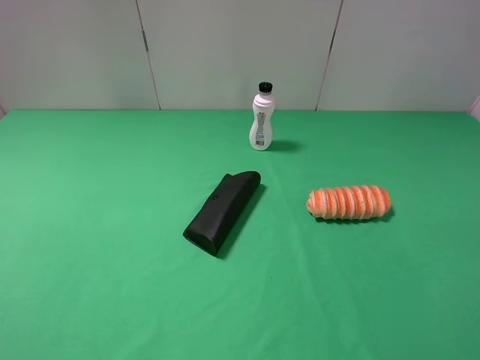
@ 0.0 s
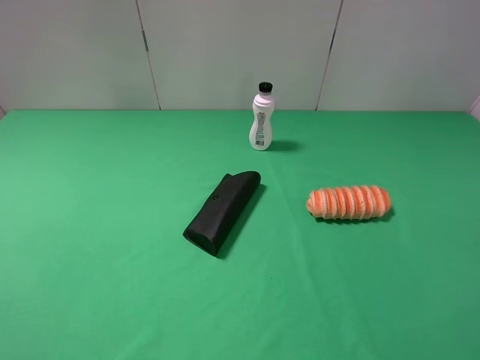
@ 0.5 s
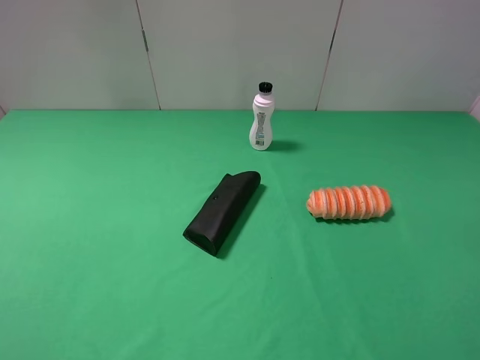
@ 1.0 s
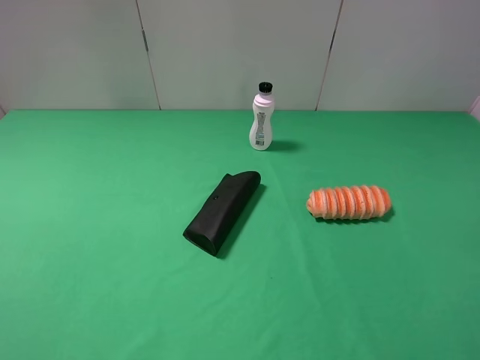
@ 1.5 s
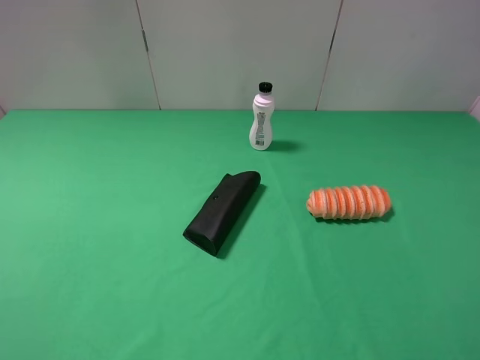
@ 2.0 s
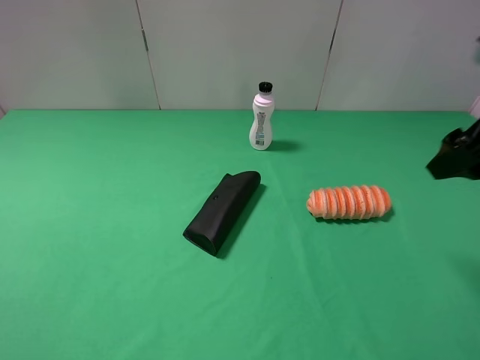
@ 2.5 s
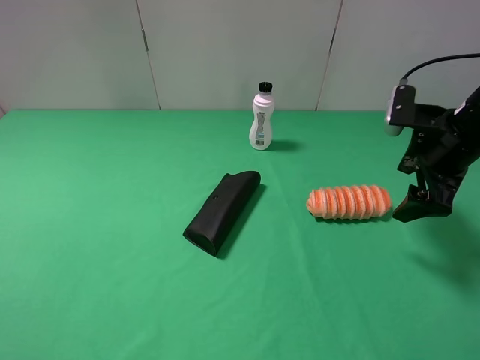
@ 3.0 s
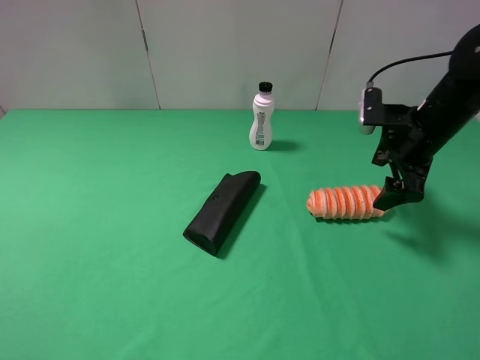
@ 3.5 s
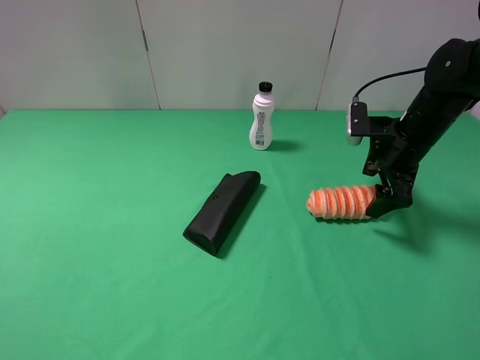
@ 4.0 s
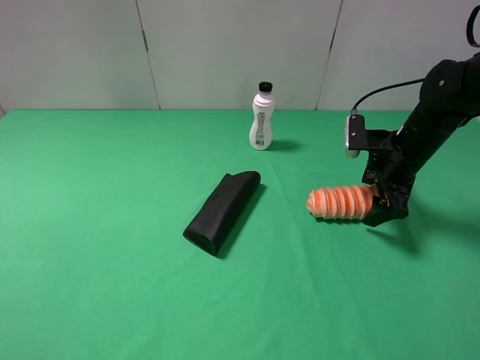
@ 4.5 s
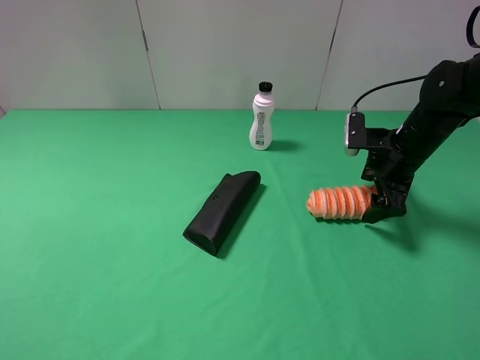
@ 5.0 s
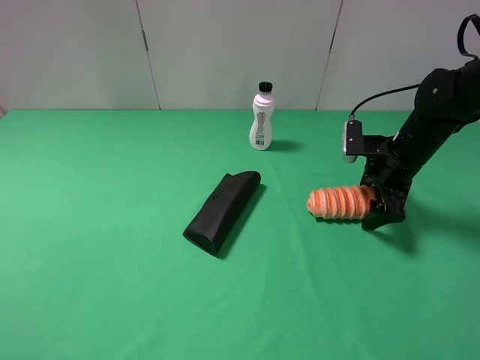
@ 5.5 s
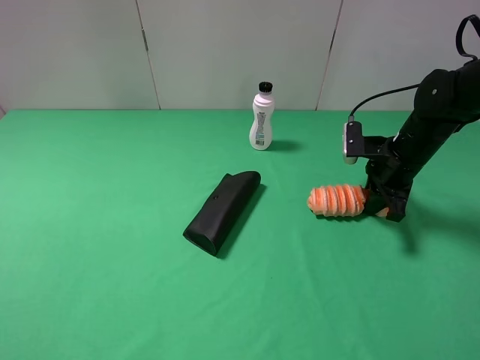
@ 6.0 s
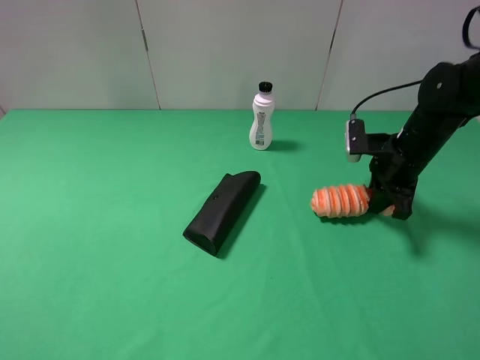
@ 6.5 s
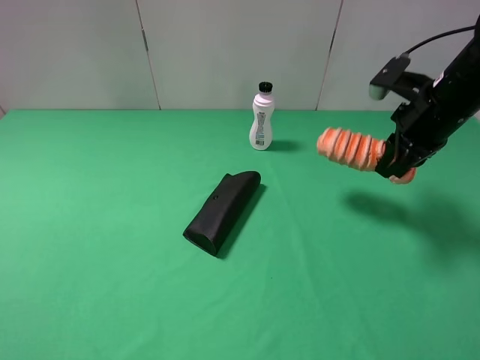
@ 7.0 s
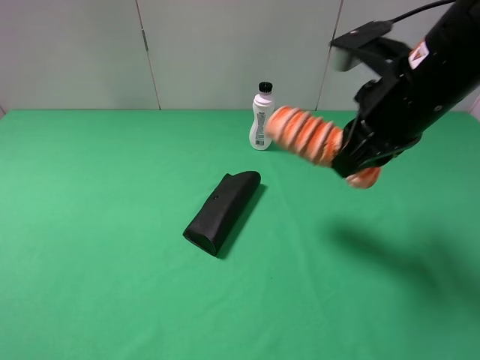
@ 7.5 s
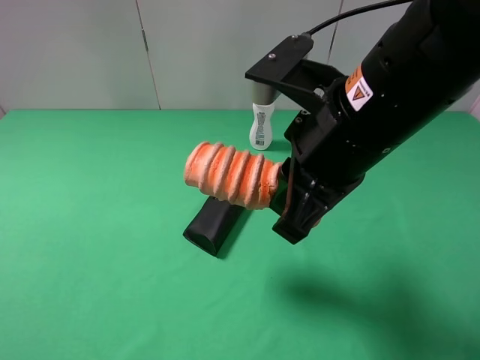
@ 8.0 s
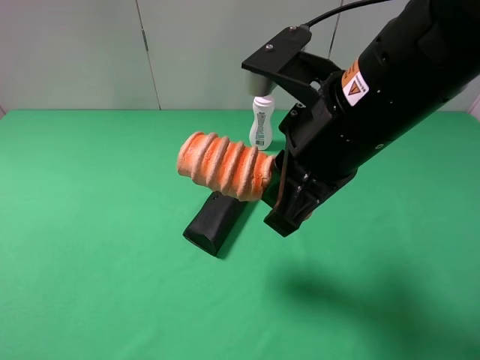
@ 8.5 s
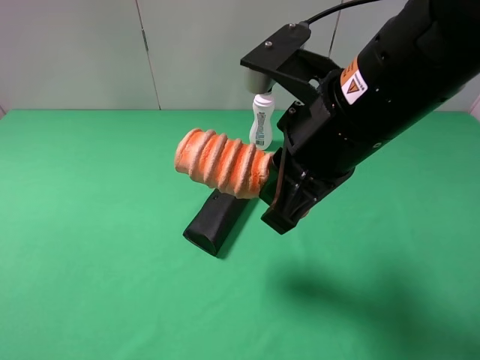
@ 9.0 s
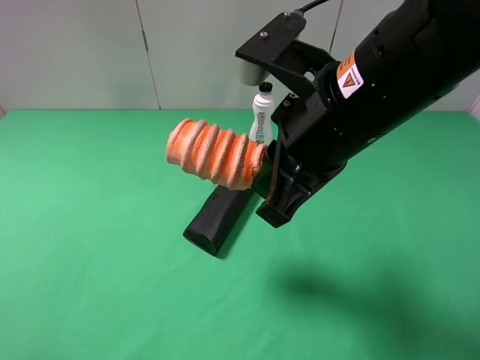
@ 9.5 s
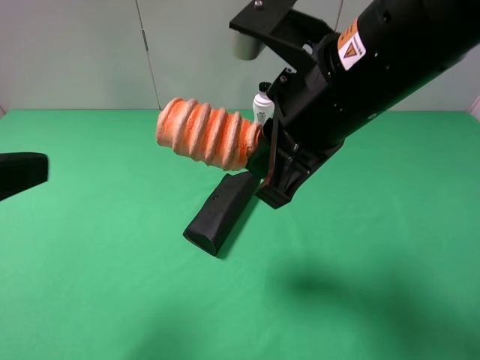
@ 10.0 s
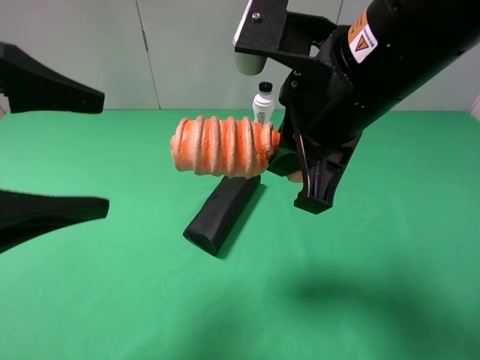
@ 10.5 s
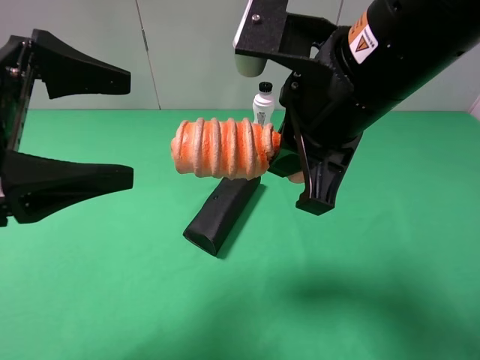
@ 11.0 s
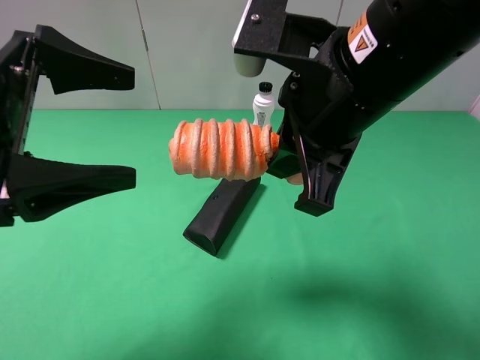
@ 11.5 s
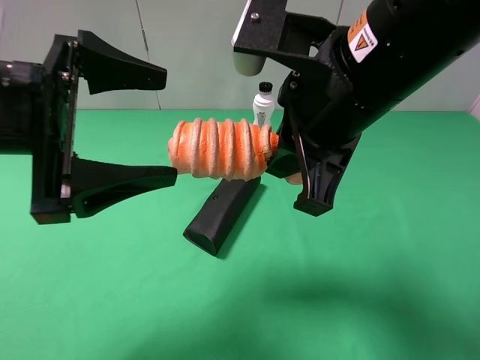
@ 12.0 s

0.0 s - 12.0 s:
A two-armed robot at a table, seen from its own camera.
Task of the whole recording: use the right gripper to pick up the item and transfer it from the right gripper to the left gripper.
Step, 0.0 s - 6.0 s: Use the right gripper to grab the bread on the right side of the table.
2.0 s - 4.0 s: The right gripper is displaced forward and downward by approximately 30 cm.
4.0 s - 6.0 s: The right gripper closes.
6.0 s - 8.0 s: The right gripper shifts about 30 cm to the left, backward and upward.
8.0 s - 10.0 s: The left gripper moves forward and to the right, about 10 cm.
10.0 s - 12.0 s: The left gripper moves forward, to the right and downward, approximately 10 cm.

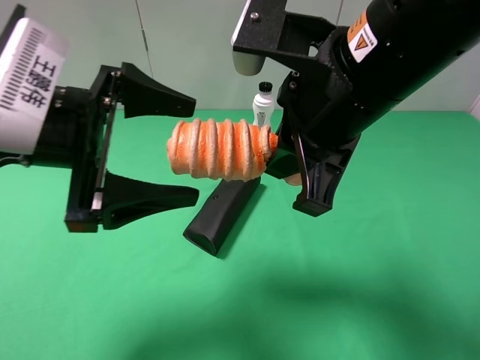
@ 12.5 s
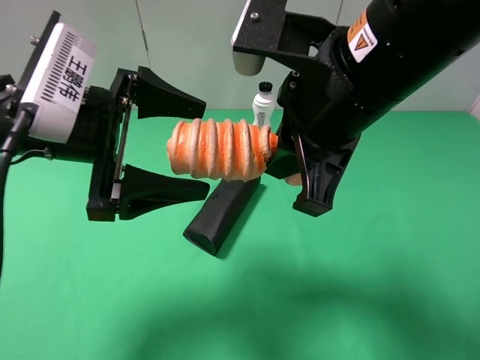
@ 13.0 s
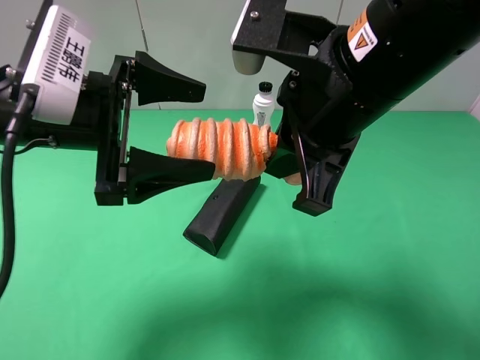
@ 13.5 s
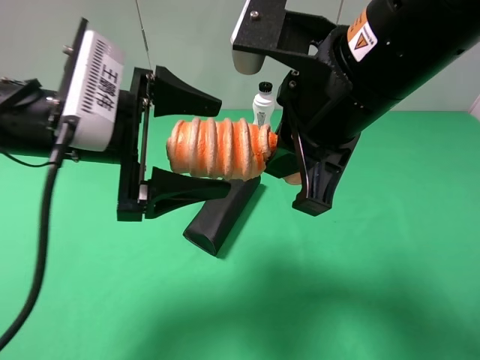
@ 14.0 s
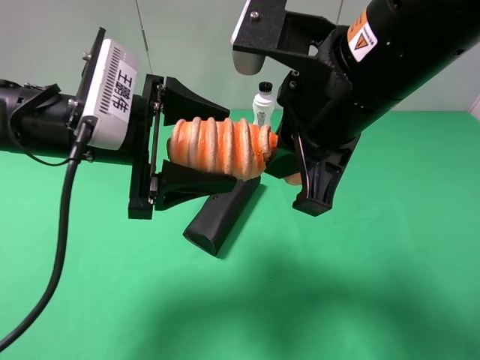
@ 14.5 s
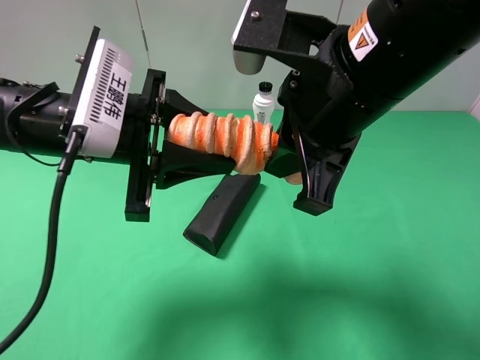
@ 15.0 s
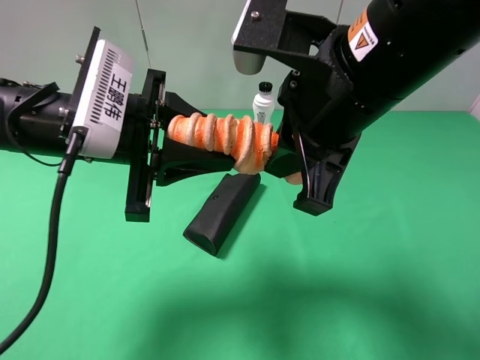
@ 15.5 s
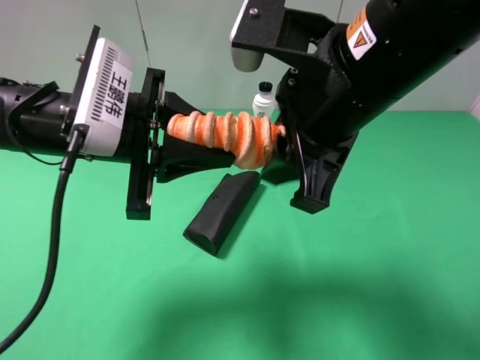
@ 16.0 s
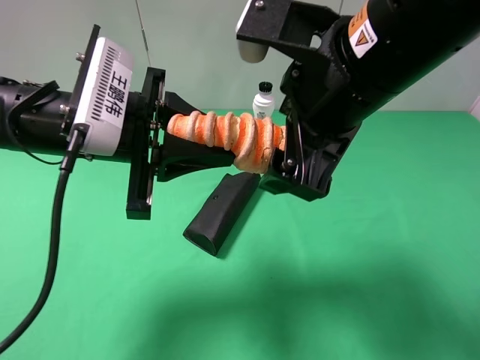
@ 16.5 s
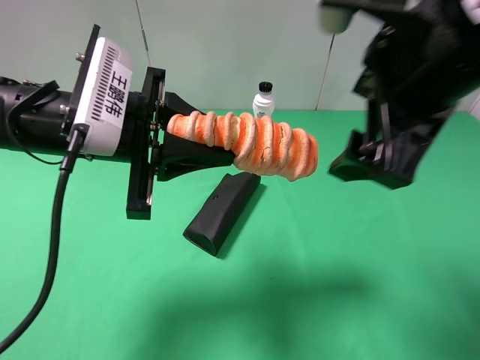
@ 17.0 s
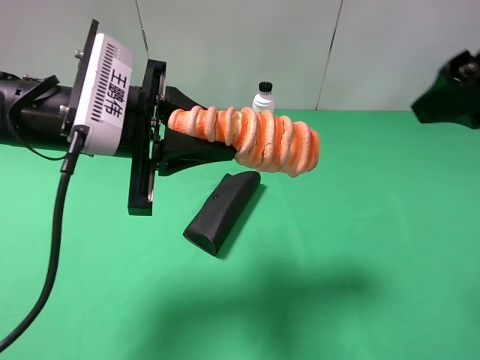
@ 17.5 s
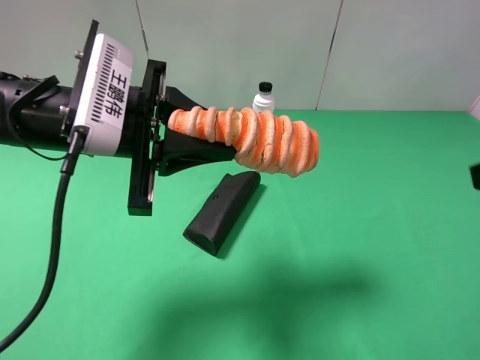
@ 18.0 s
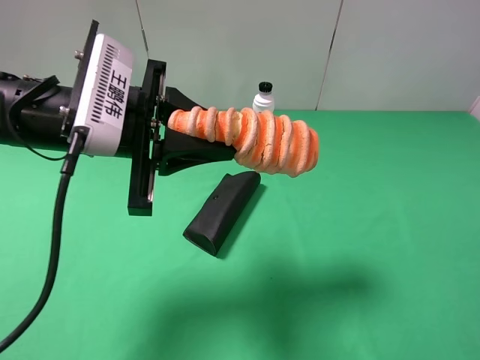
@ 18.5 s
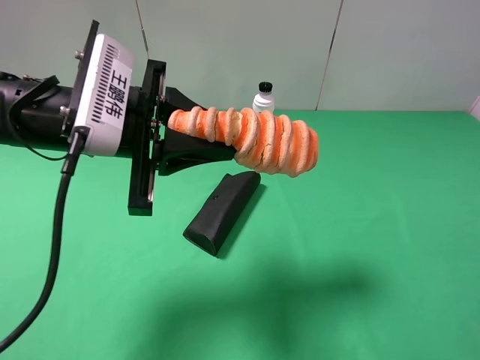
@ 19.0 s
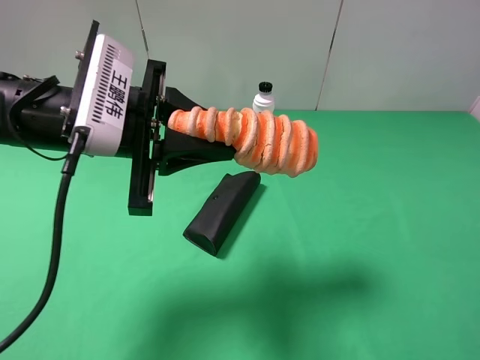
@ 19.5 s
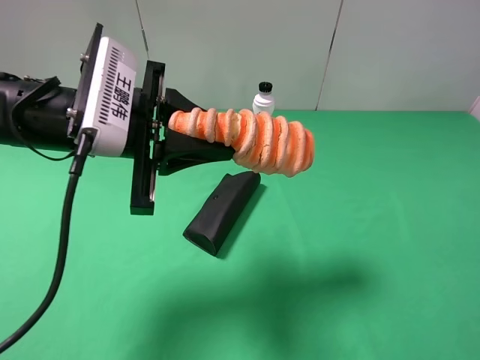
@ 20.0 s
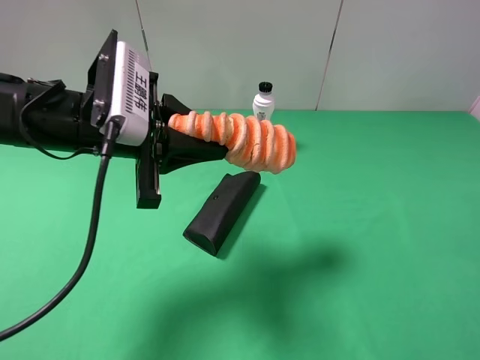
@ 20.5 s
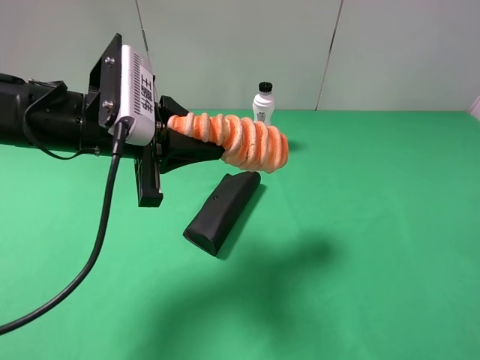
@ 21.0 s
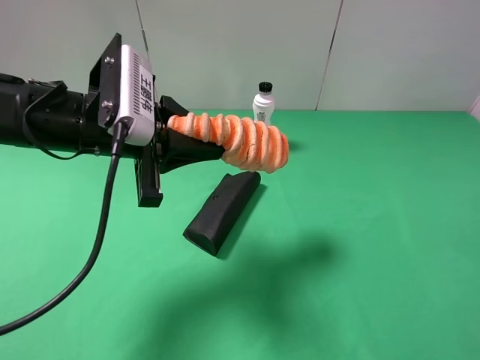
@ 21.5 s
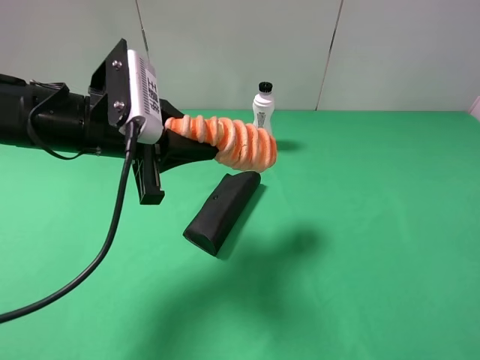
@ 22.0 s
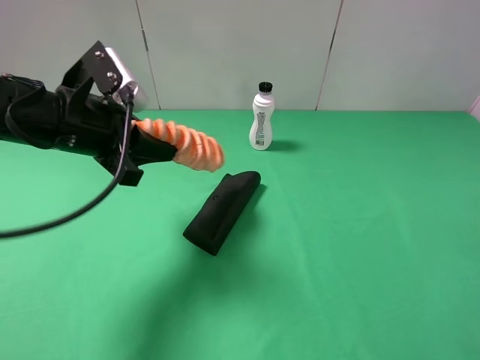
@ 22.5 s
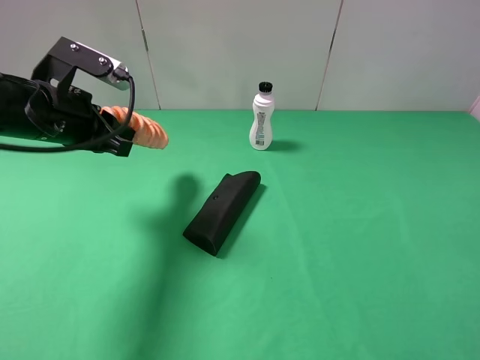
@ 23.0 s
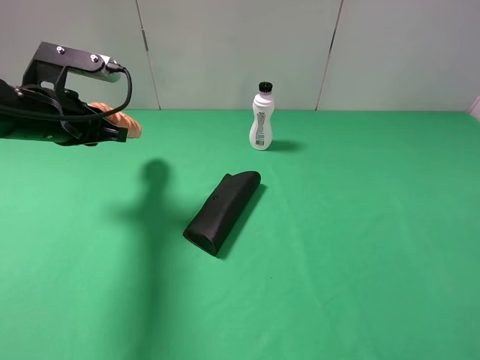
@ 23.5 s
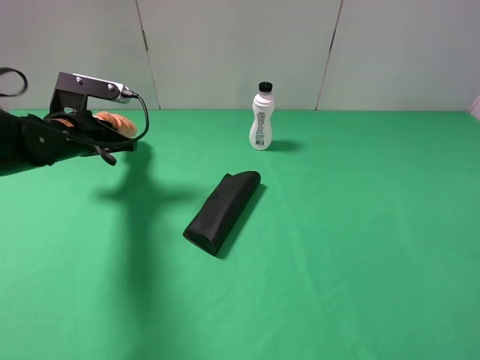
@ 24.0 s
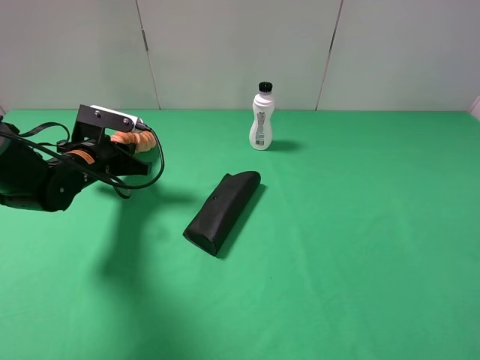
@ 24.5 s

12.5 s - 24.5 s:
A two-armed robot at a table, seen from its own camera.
Task of the whole recording: use the right gripper to pick up the item and transfer it from the right gripper to the left gripper.
Step, 12.5 s - 16.0 s: Pass the bread to the left gripper.
12.5 s - 14.5 s: The grippers stay close to where they were, moving slightly.
14.5 s - 16.5 s: The right gripper opens its fingers. Meanwhile the left gripper closes.
16.5 s - 18.5 s: The right gripper travels to the right and backward by approximately 25 cm.
20.5 s - 22.5 s: The left gripper shifts about 5 cm to the left.
22.5 s - 24.5 s: The left gripper goes roughly 15 cm downward and forward.

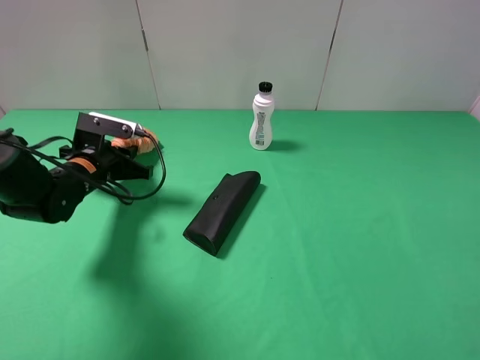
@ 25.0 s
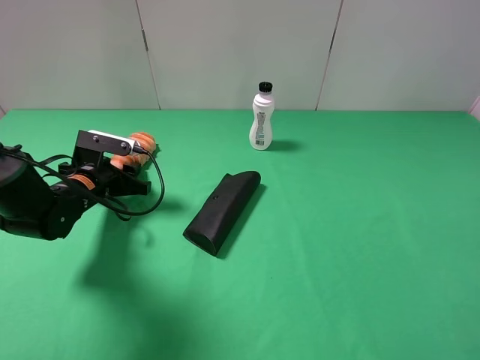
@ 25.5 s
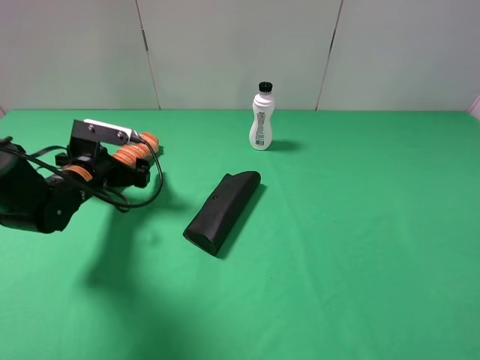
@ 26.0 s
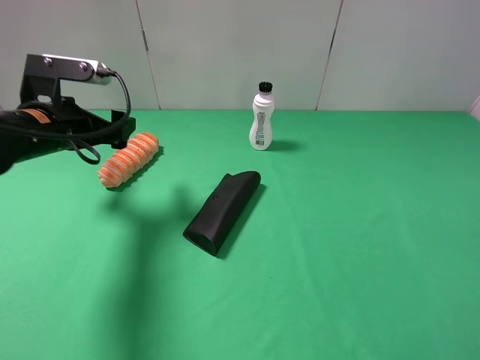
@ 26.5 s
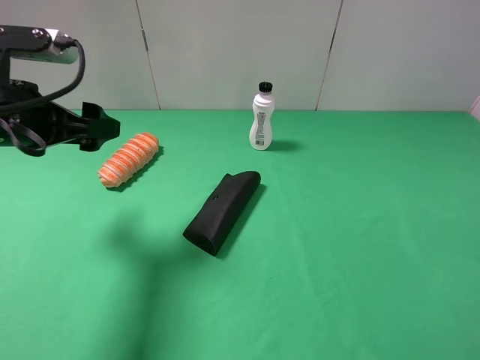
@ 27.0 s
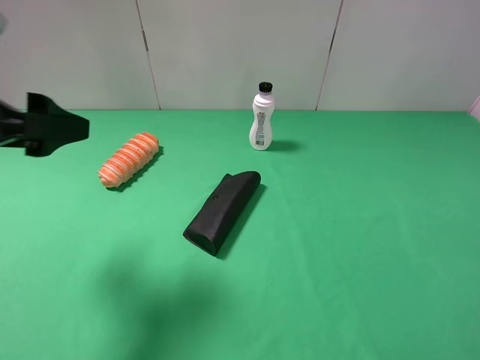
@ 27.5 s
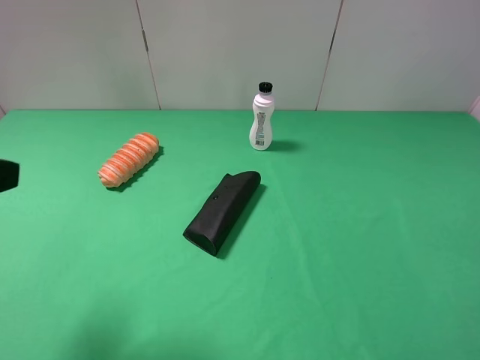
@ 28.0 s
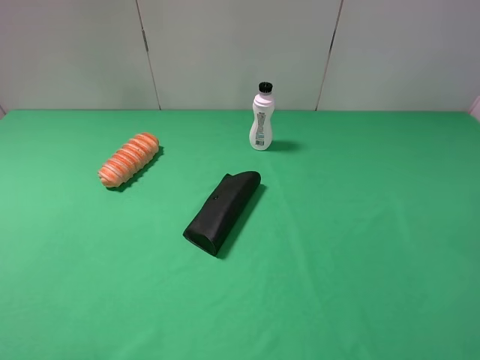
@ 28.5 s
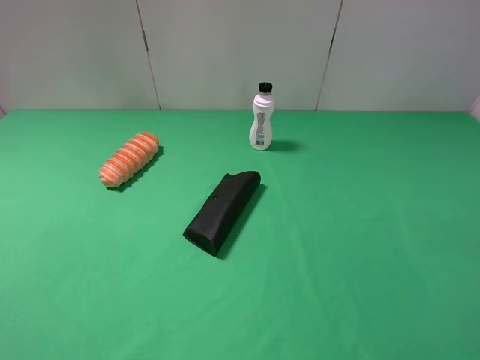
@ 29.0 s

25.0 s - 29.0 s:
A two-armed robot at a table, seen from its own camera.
Task of the whole recording: use the right gripper to pick up the item and transfer it from the right gripper to the left gripper.
25.0 s - 27.0 s: The left gripper travels upward and backward by some 20 cm, and opens up.
27.0 s - 29.0 s: The left gripper goes some 20 cm backward.
